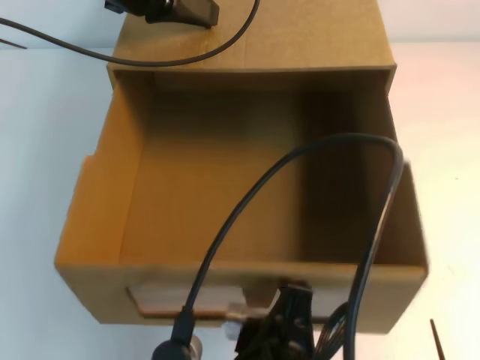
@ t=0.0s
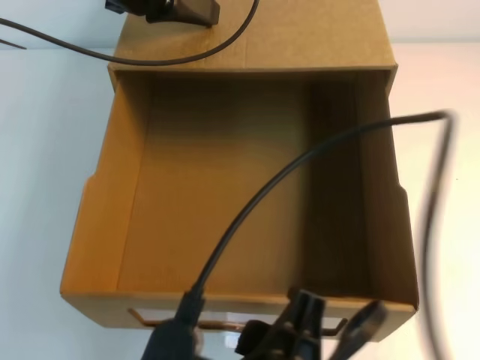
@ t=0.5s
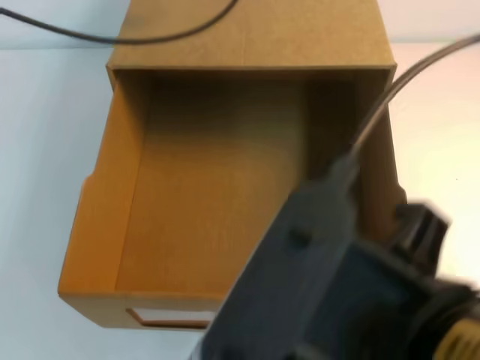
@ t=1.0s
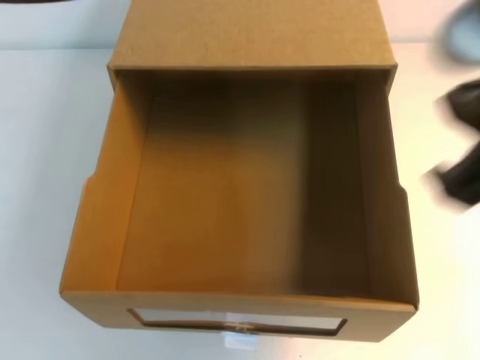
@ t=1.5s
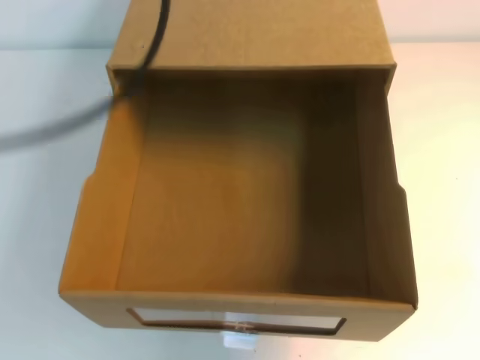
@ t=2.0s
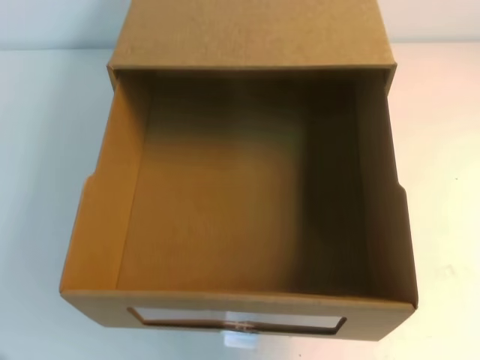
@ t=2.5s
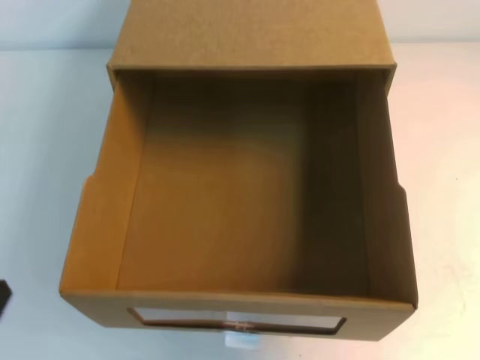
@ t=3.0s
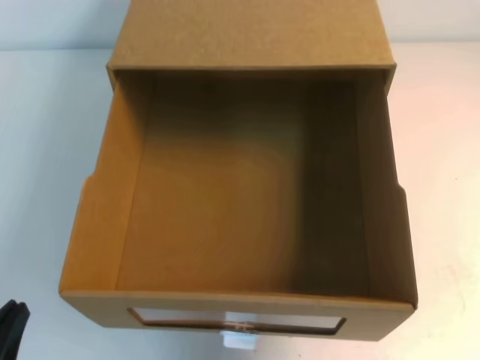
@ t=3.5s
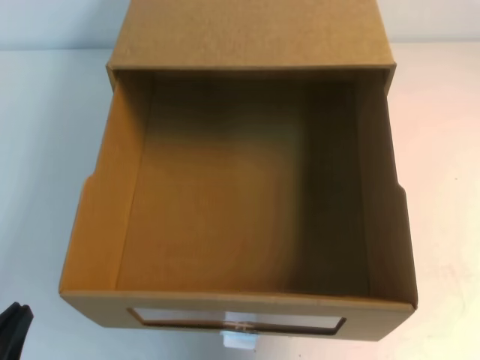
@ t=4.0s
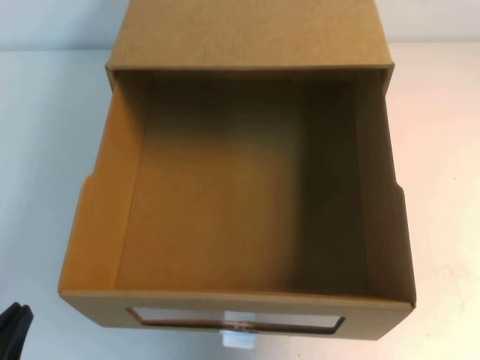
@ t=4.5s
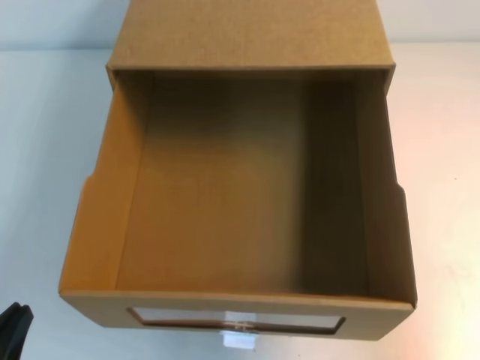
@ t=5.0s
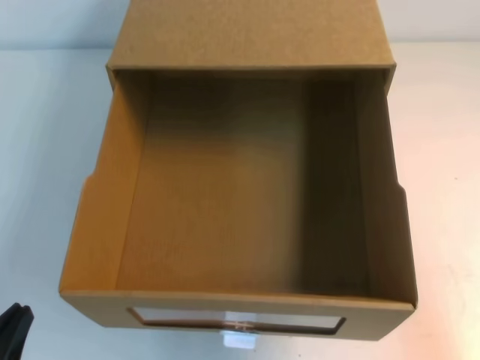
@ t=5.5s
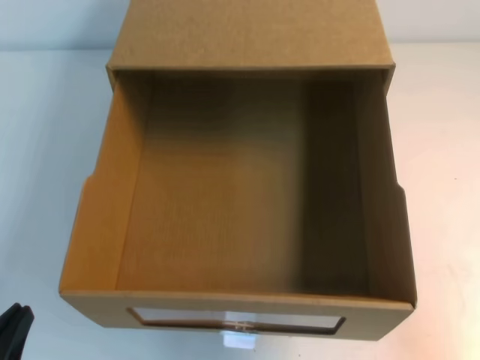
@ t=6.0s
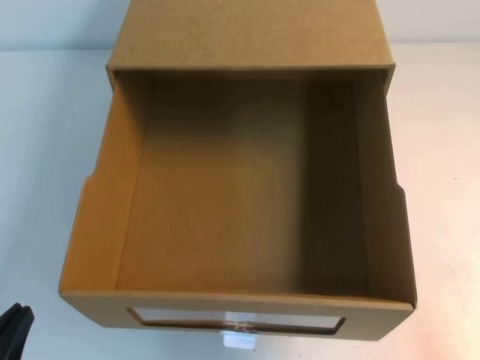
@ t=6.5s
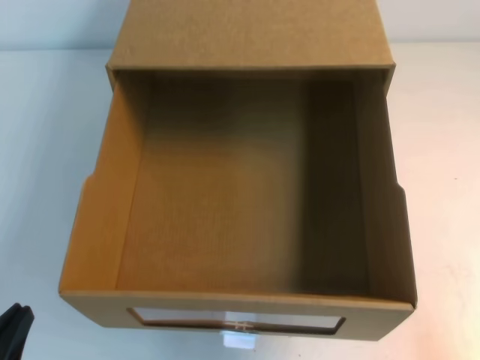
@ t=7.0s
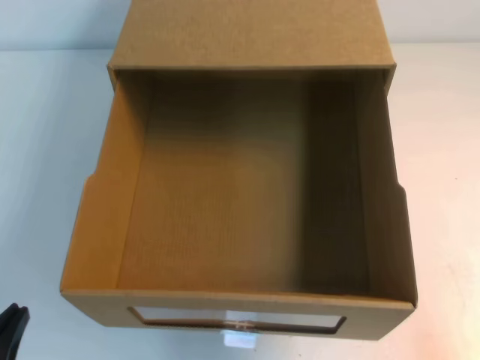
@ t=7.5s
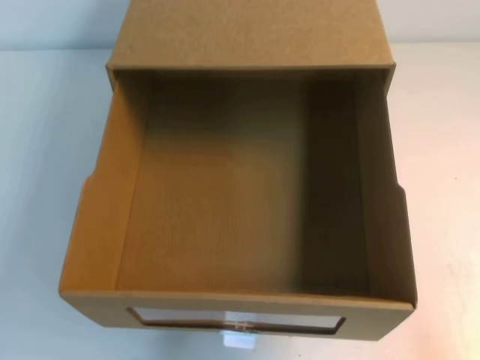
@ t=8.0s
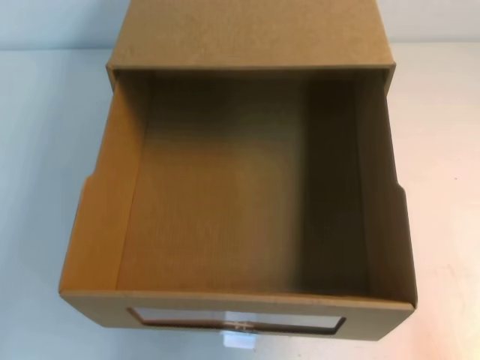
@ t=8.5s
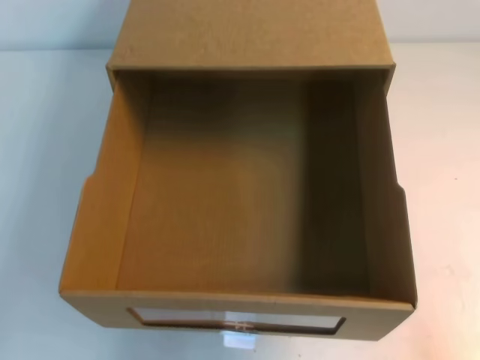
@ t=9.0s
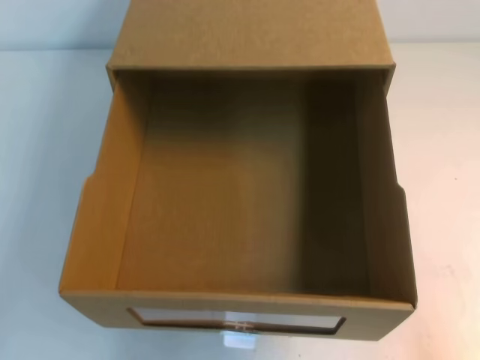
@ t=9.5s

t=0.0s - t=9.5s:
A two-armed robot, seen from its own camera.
Task of the whole recording: open the shoebox on the table.
Step, t=0.0s - t=9.5s: Open the shoe box.
t=0.0s - t=2.0s: The left gripper travels backward and upward by some 20 cm. Meanwhile the right gripper travels to the right and upward by roughly 35 cm, and closes.
t=2.0s - t=4.0s: The left gripper travels downward and backward by some 35 cm.
t=4.0s - t=5.5s: The right gripper travels downward by approximately 25 cm.
t=7.5s - t=9.5s: The grippers move only a little.

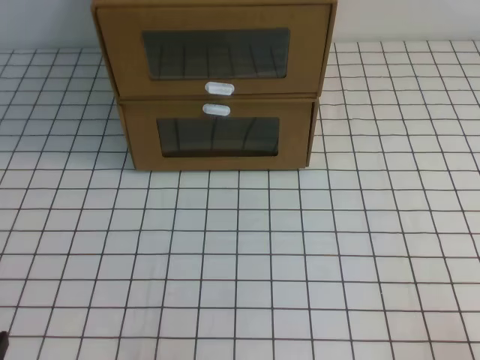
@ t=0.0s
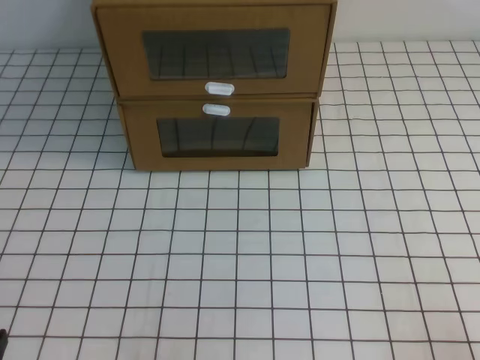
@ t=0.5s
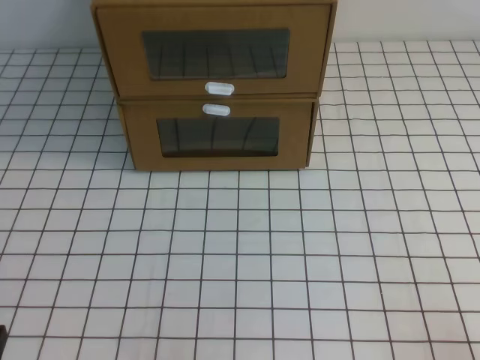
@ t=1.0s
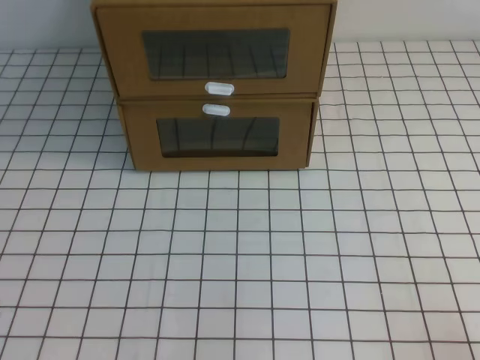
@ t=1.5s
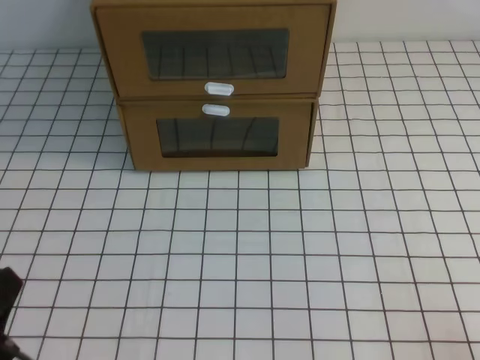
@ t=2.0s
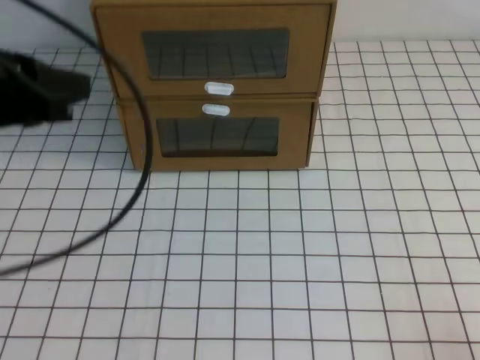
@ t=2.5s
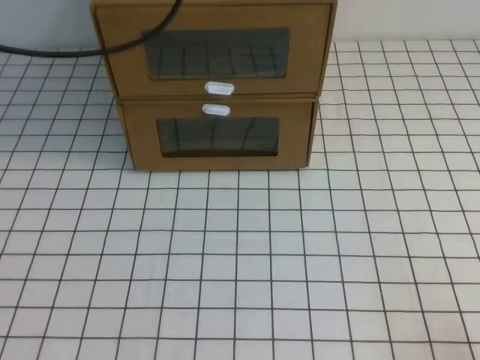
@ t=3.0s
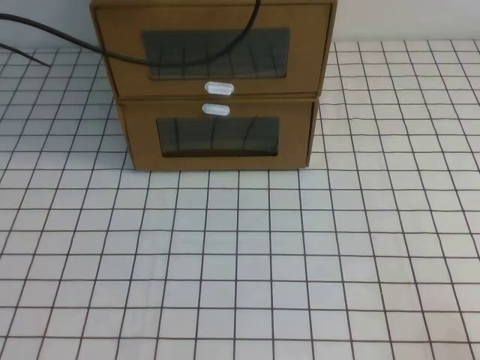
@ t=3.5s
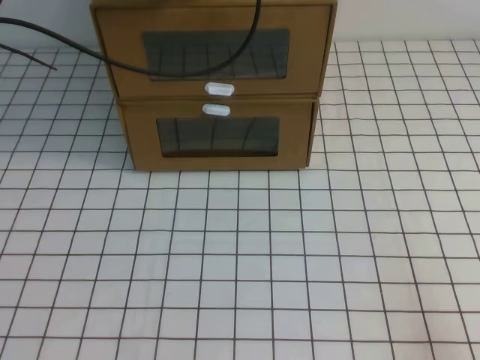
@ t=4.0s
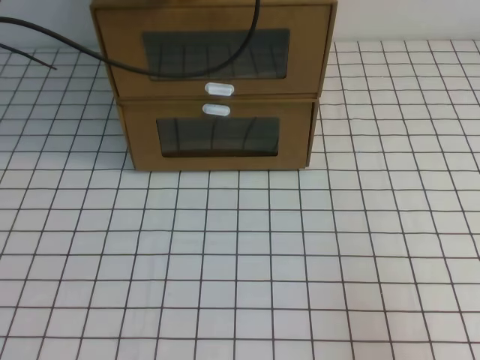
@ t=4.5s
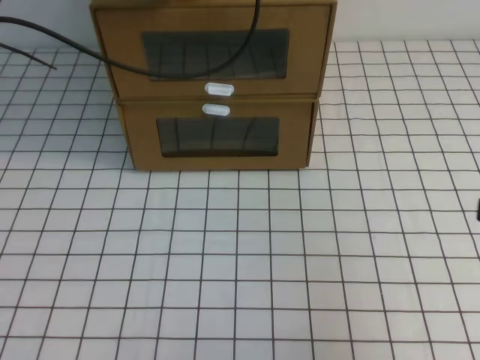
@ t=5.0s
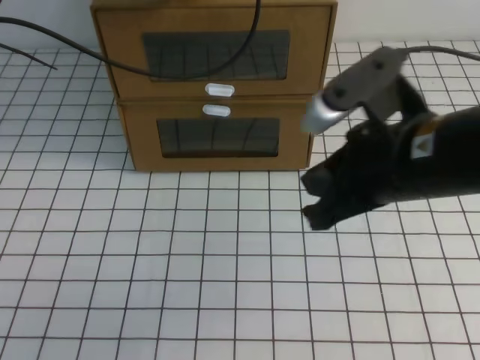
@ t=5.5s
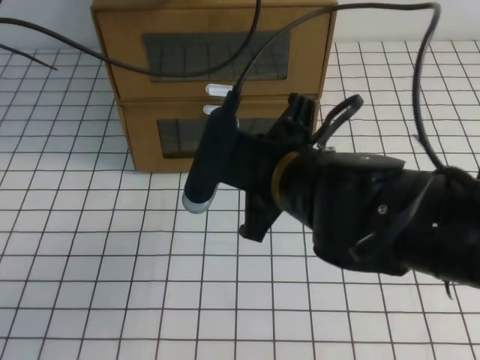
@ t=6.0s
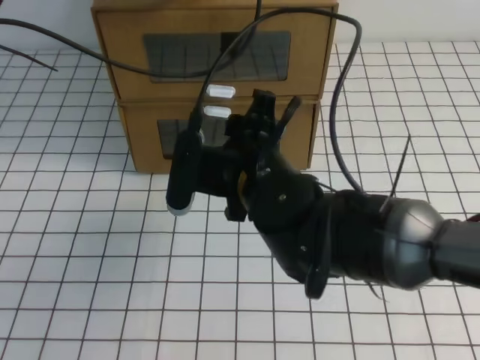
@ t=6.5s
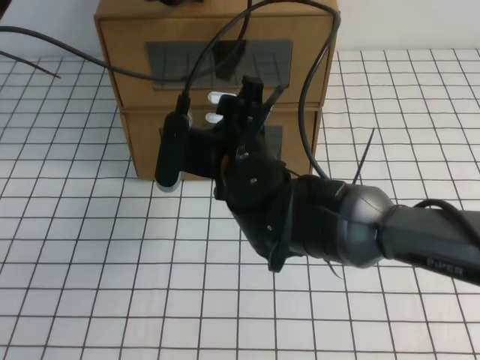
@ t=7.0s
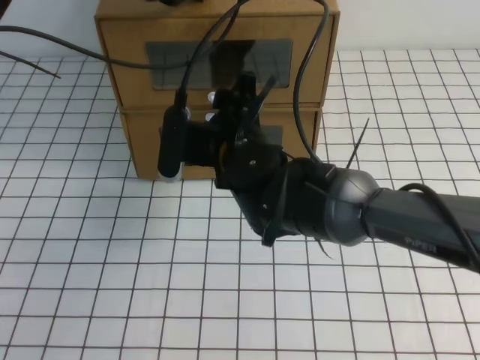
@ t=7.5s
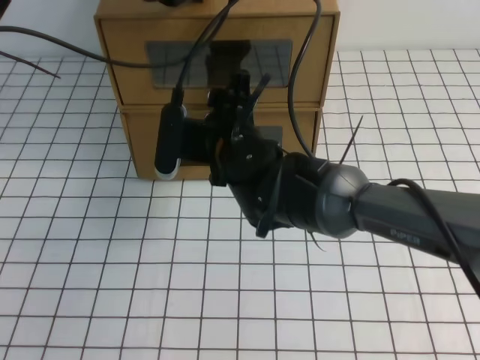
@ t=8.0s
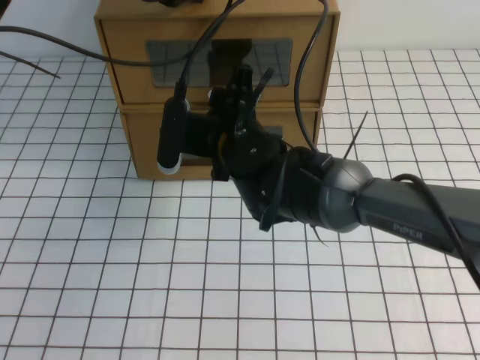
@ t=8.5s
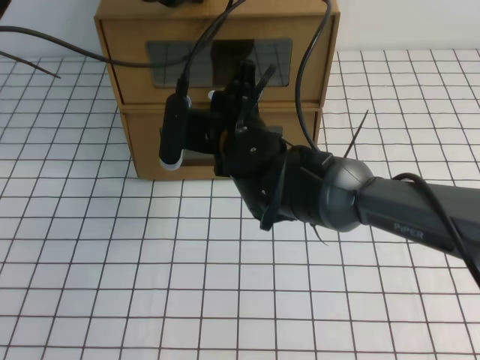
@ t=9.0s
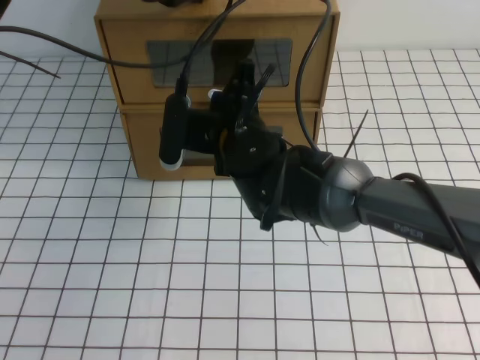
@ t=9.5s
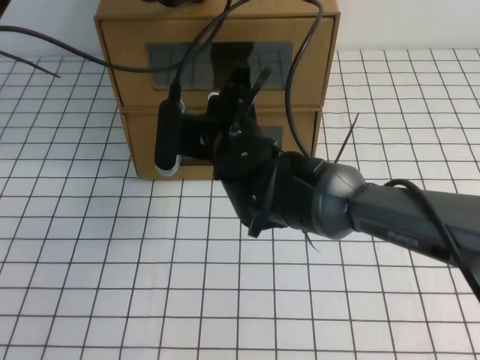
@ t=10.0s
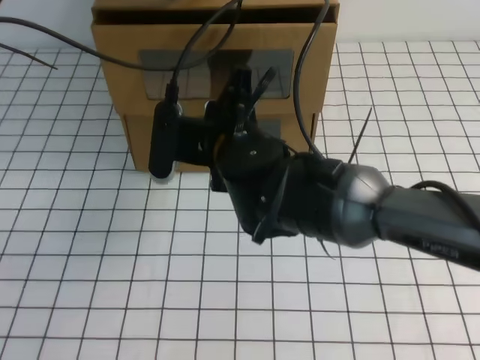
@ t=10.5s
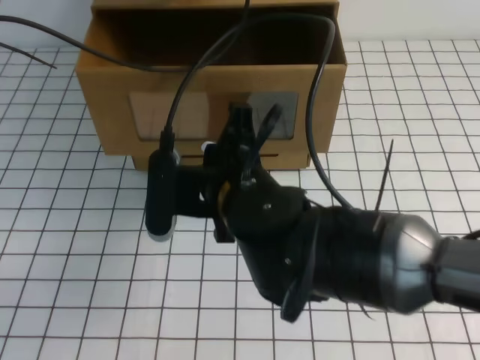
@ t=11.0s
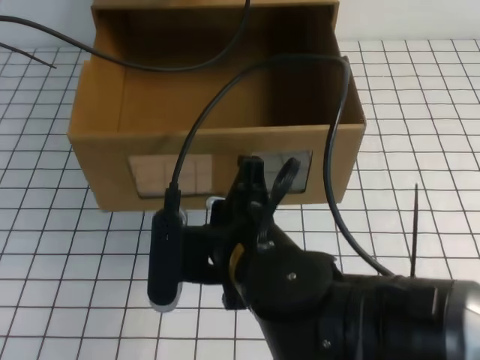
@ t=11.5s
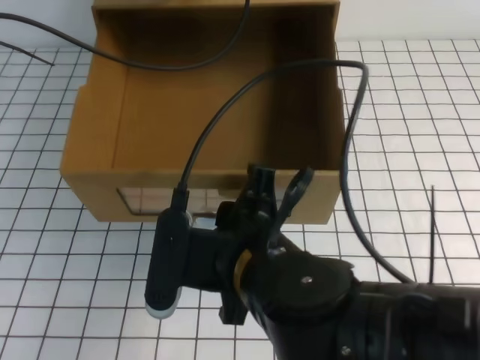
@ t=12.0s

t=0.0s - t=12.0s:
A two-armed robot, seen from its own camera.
Task of the whole recording: open the shoebox on the white tablecloth.
t=0.0s - t=2.0s: The left gripper travels upward by approximately 10 cm.
t=2.0s - t=4.0s: The left gripper heads forward and upward, covering about 40 cm.
t=4.0s - t=6.0s: The right gripper moves to the left and forward, about 30 cm.
t=6.0s - t=8.0s: The right gripper travels forward, to the left and downward by some 15 cm, and opens up.
t=8.0s - t=10.0s: The right gripper closes its fingers.
t=10.0s - t=12.0s: The right gripper is displaced backward by about 15 cm.

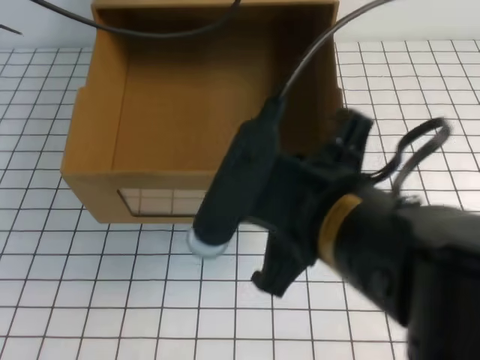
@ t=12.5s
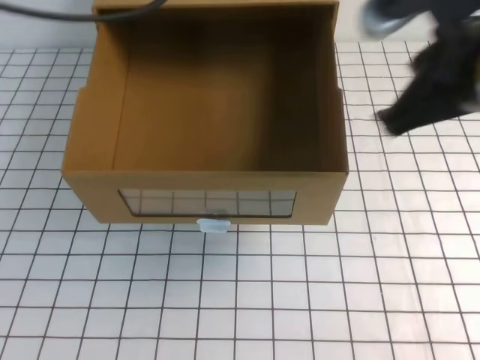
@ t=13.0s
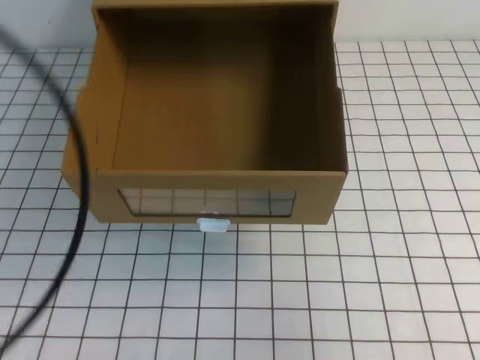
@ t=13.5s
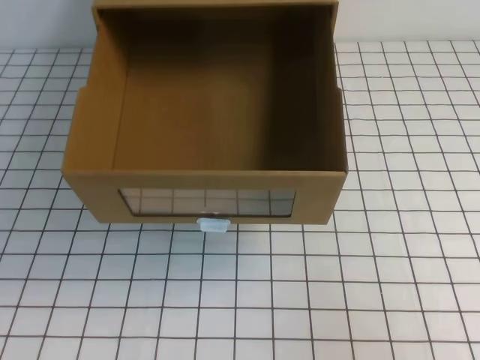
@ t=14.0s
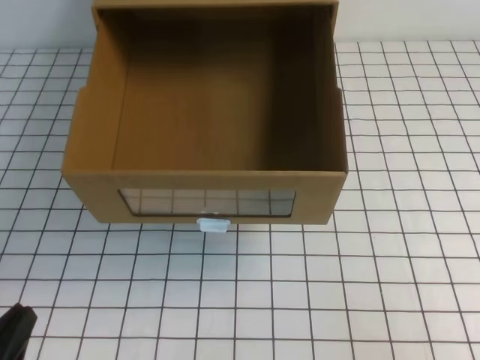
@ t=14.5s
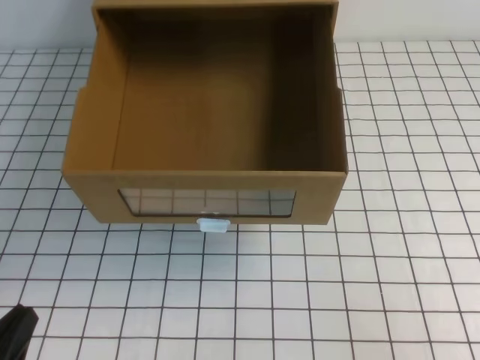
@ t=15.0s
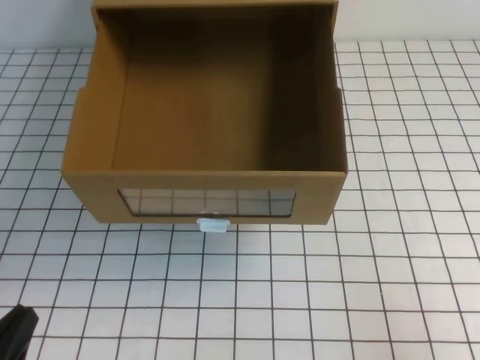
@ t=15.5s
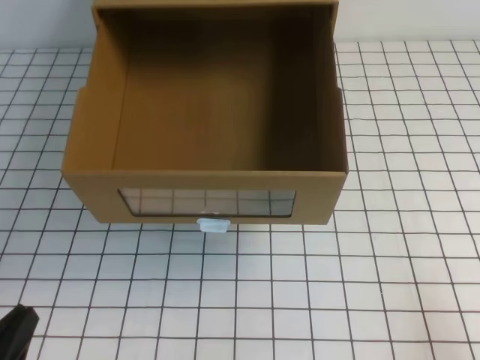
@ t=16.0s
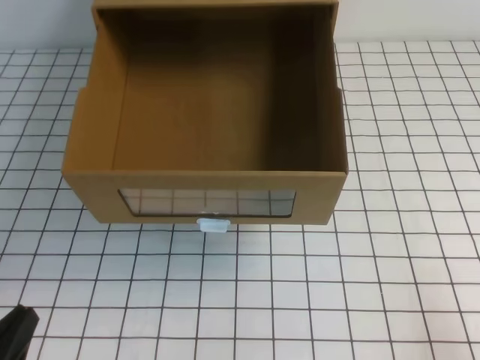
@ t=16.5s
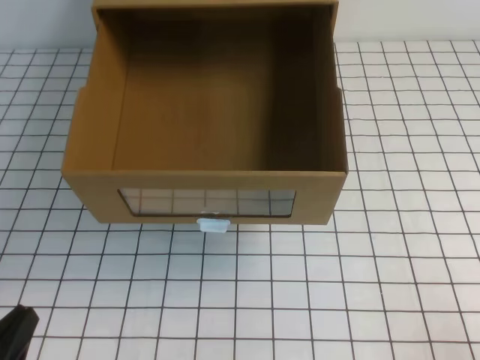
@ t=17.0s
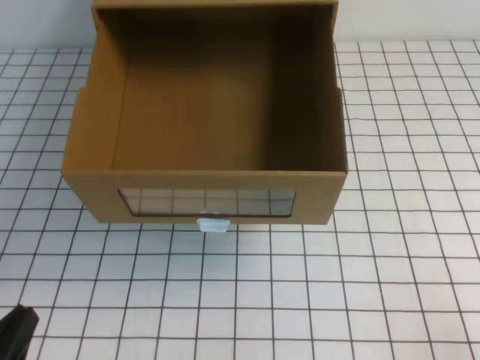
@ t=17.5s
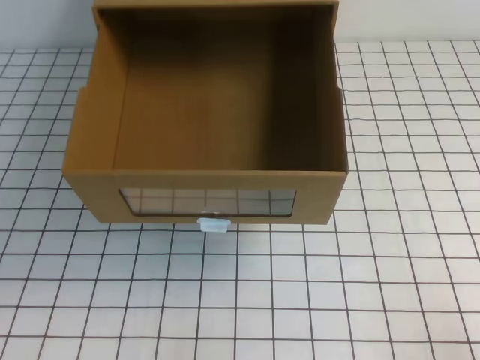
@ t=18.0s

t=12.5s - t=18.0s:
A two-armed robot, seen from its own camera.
Task of the whole recording: open the shoebox on the white tablecloth.
Step, t=12.5s - t=18.0s: Open the shoe box.
t=12.5s - t=14.5s: The right gripper is displaced to the right by some 25 cm. The left gripper moves backward and downward, some 40 cm.
t=16.0s - t=18.0s: The grippers move only a little.
